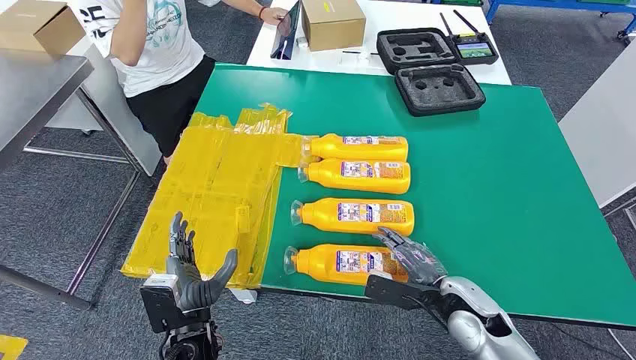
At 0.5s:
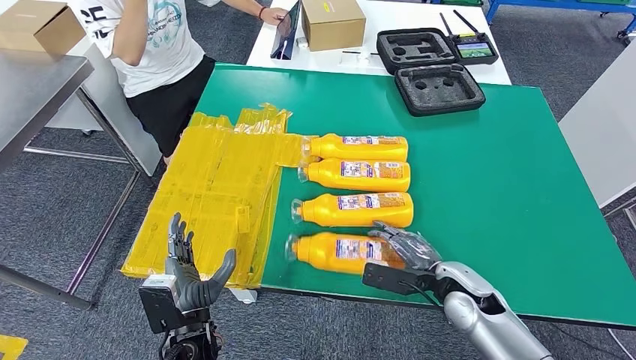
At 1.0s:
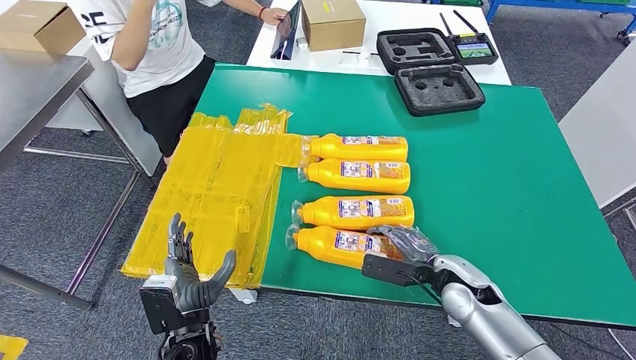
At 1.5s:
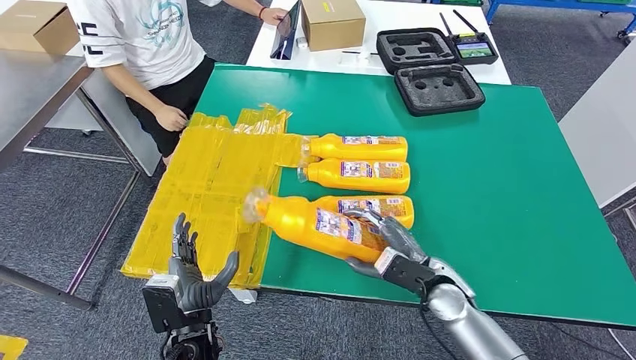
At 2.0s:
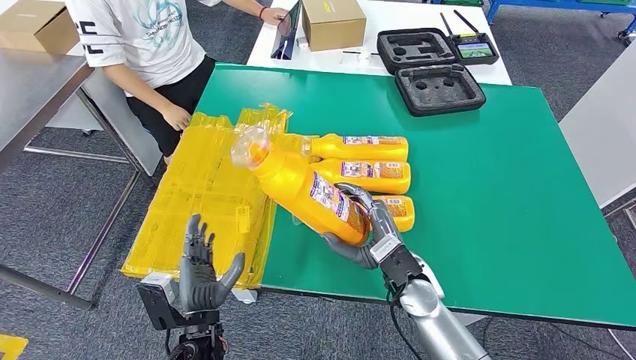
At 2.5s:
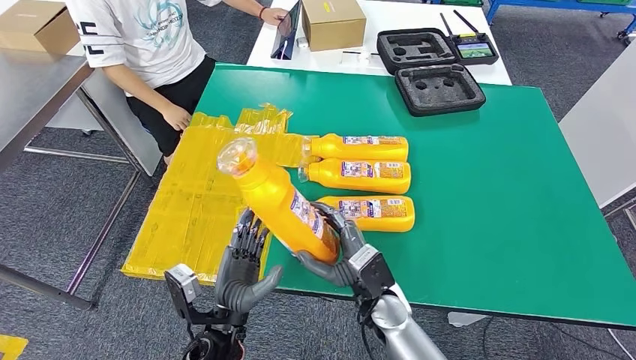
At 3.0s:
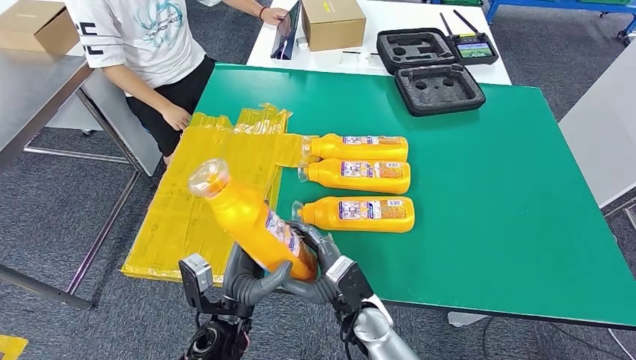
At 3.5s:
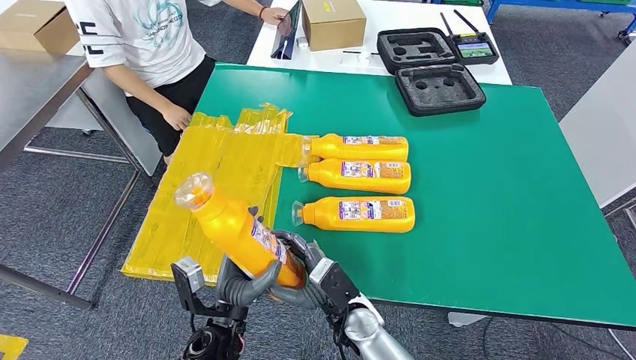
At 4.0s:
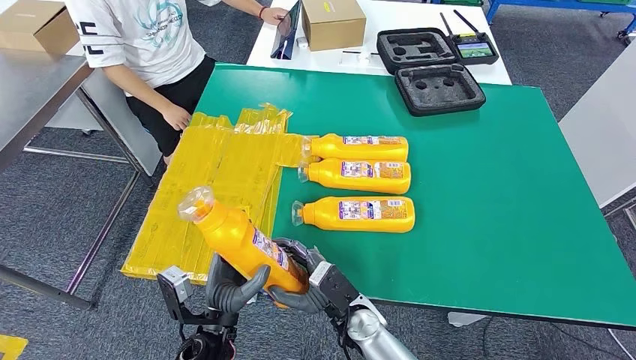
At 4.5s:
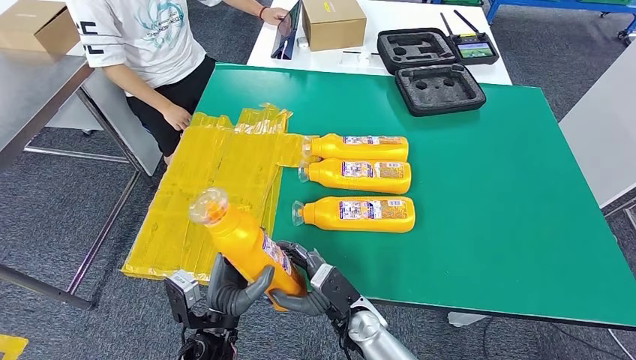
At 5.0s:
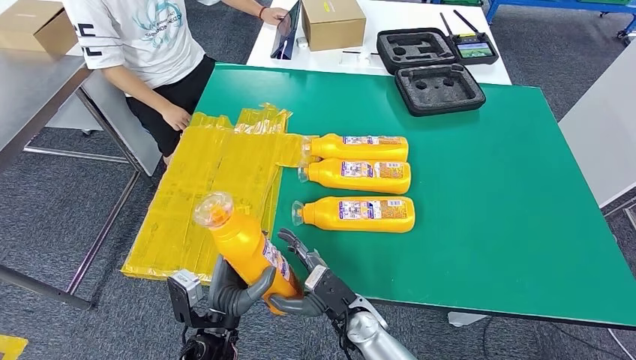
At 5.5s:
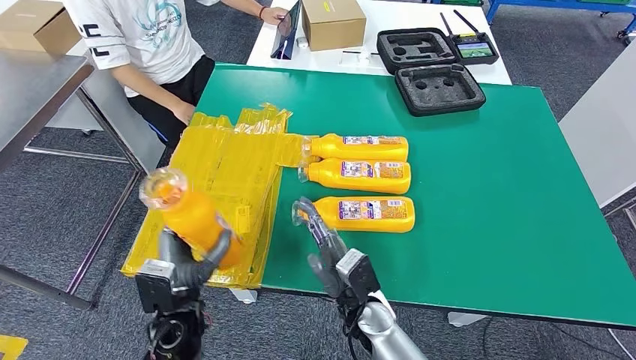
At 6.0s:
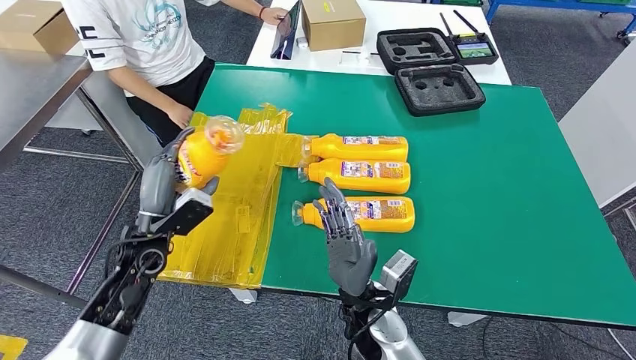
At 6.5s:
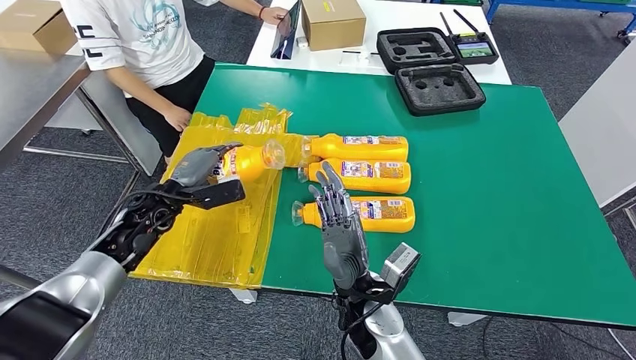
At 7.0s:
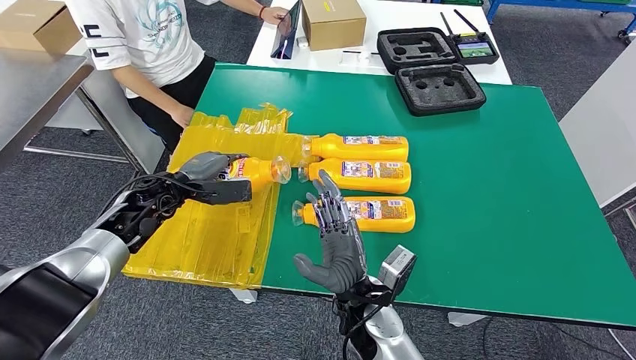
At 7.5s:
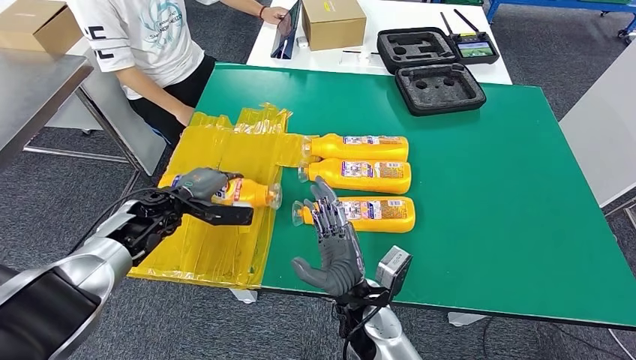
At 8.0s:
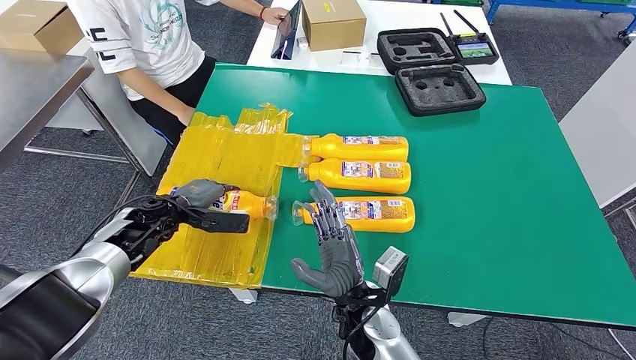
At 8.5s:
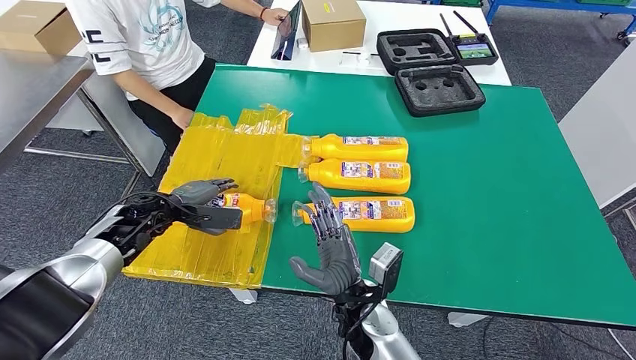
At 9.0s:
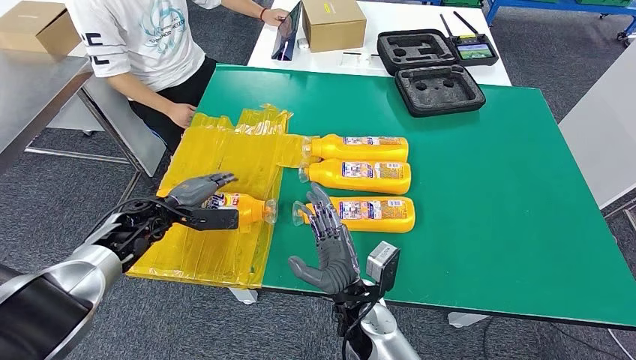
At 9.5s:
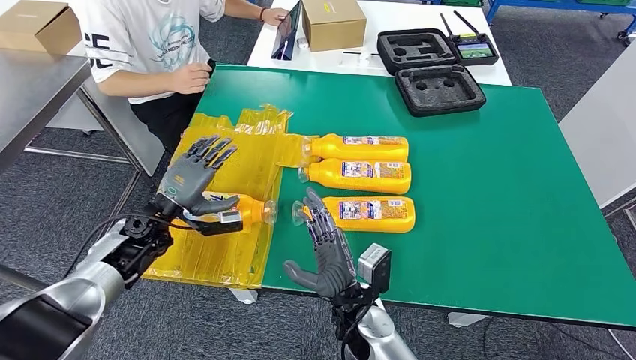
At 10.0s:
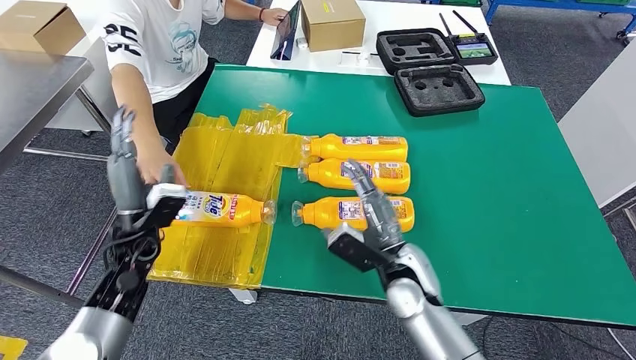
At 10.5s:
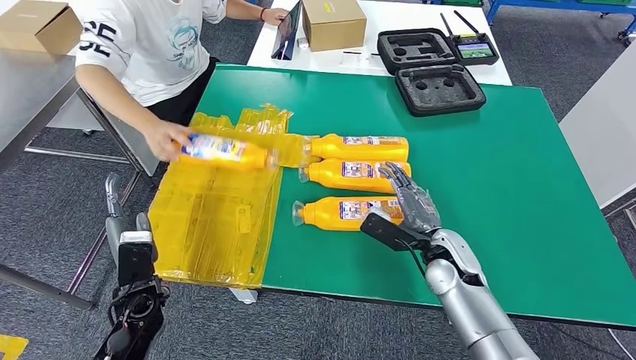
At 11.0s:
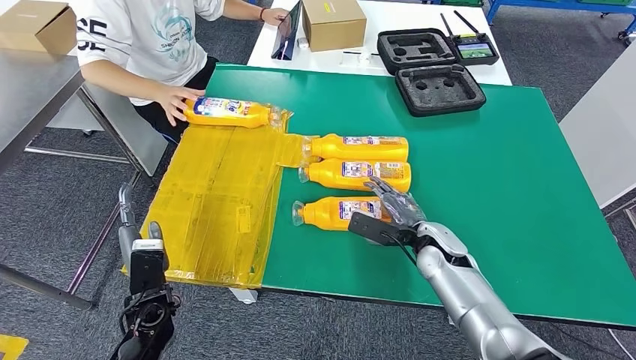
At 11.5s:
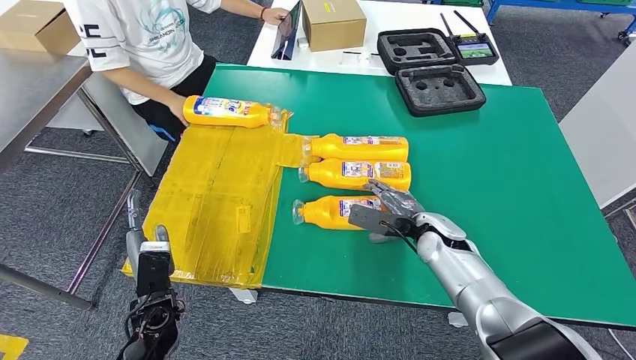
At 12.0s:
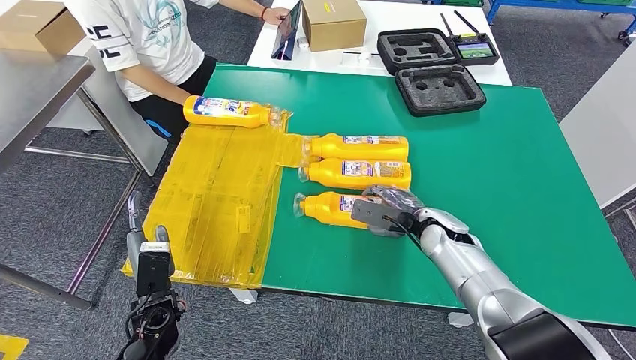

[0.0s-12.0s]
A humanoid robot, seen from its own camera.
Step, 0.0s to 3.5s: Take the fast-moving consumer goods bottle from the table.
Step, 4.0s to 8.0s: Flip the fast-moving consumer goods bottle to the front side.
2.0s to 4.0s: The right hand heads to the left and downward, covering approximately 10 cm.
4.0s to 6.0s: The right hand heads upward, covering roughly 5 cm; the left hand shifts some 20 cm forward, to the left and upward.
6.0s to 8.0s: The left hand goes some 10 cm forward.

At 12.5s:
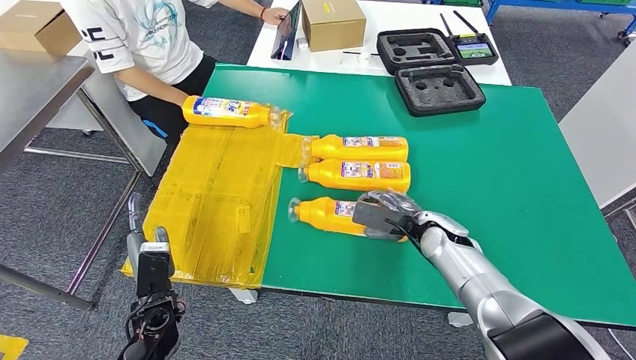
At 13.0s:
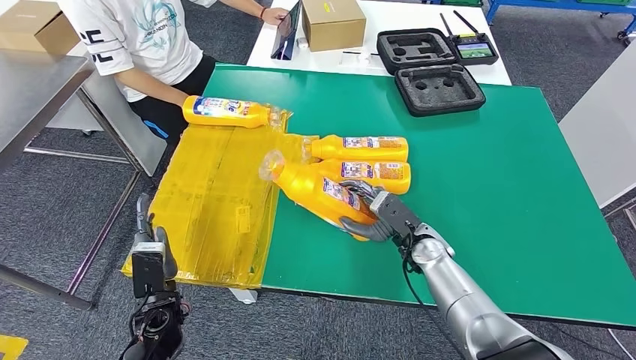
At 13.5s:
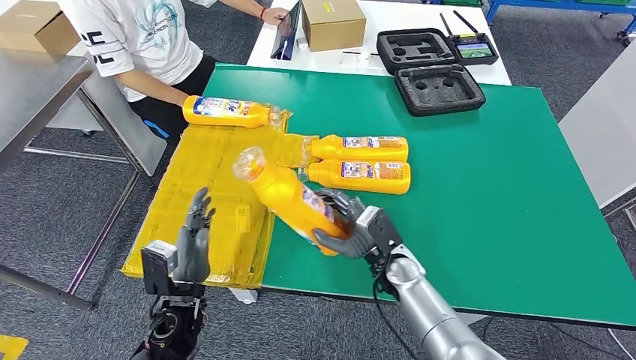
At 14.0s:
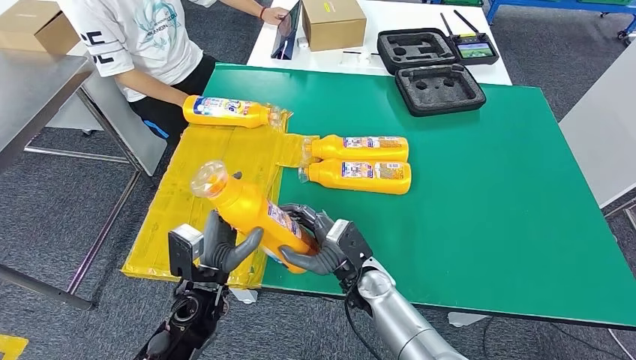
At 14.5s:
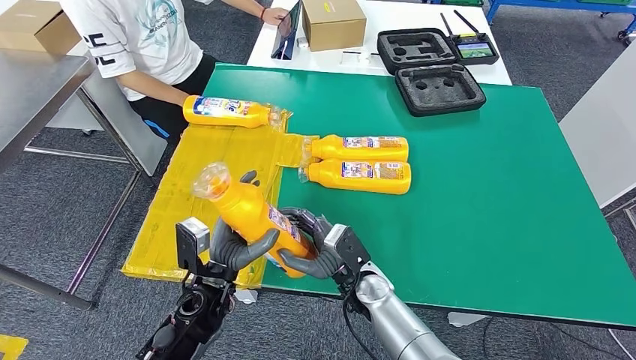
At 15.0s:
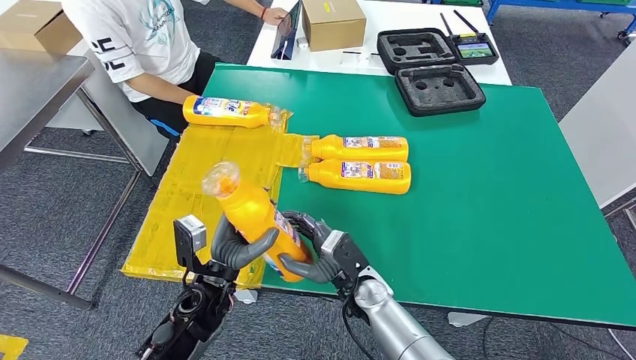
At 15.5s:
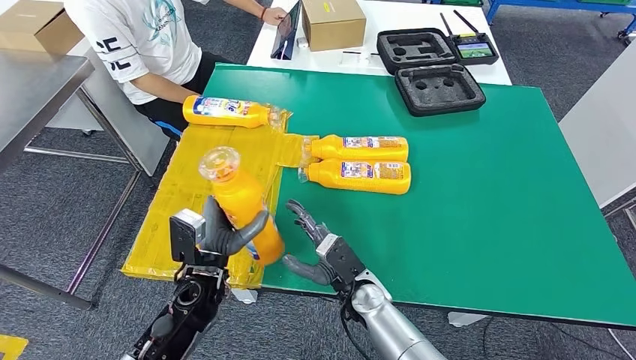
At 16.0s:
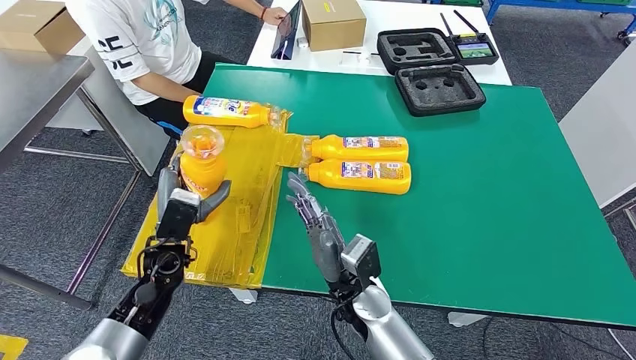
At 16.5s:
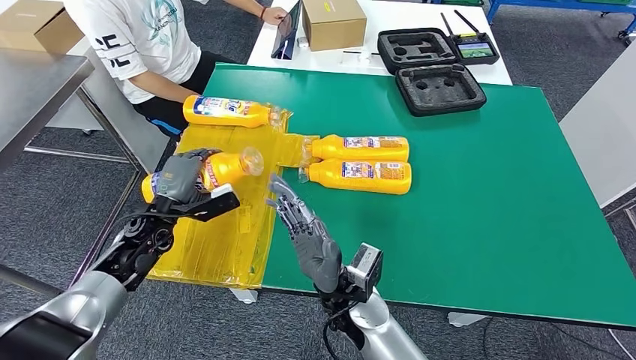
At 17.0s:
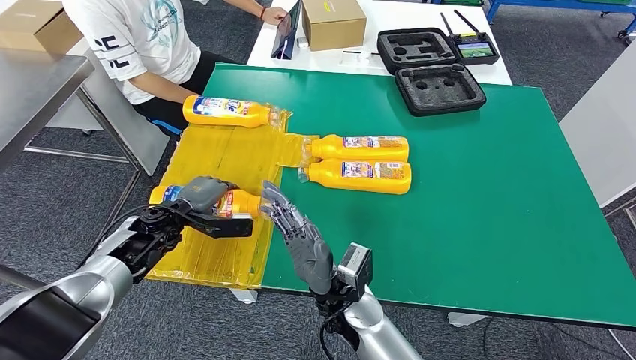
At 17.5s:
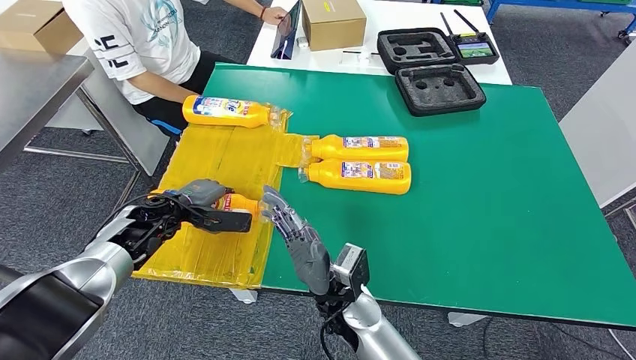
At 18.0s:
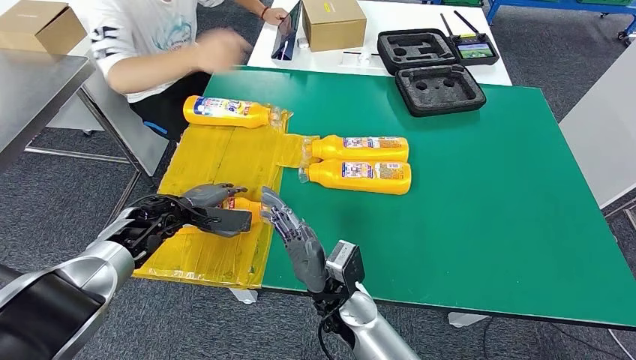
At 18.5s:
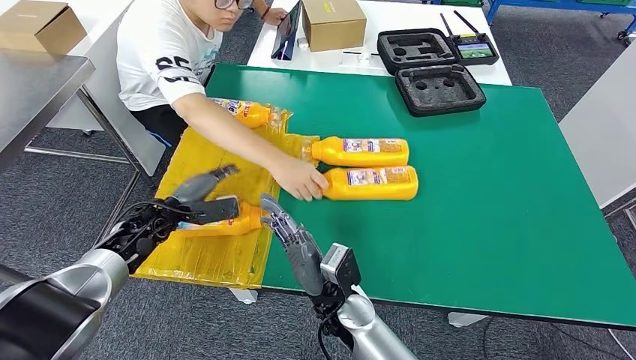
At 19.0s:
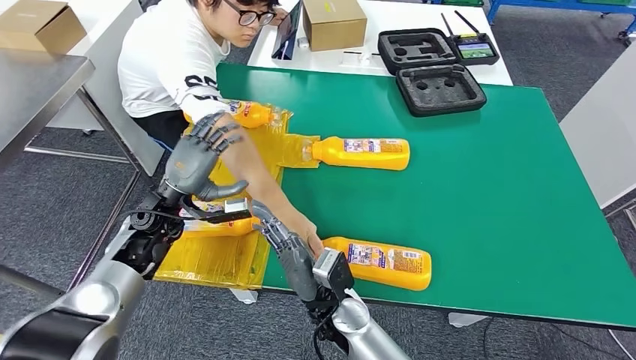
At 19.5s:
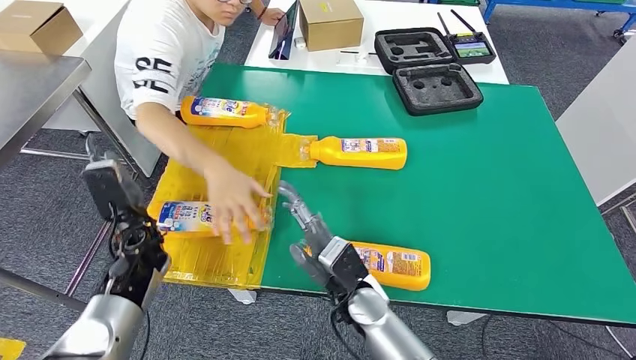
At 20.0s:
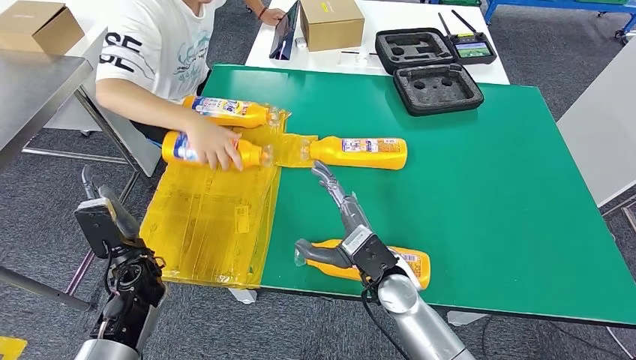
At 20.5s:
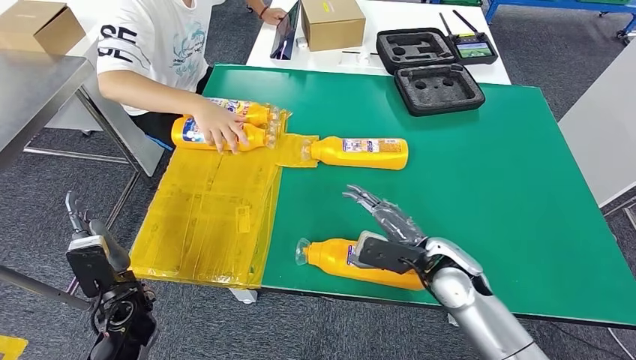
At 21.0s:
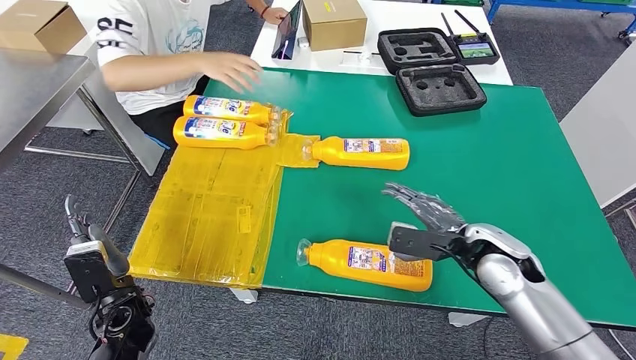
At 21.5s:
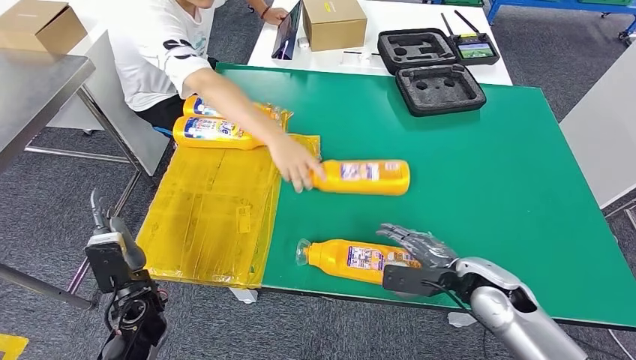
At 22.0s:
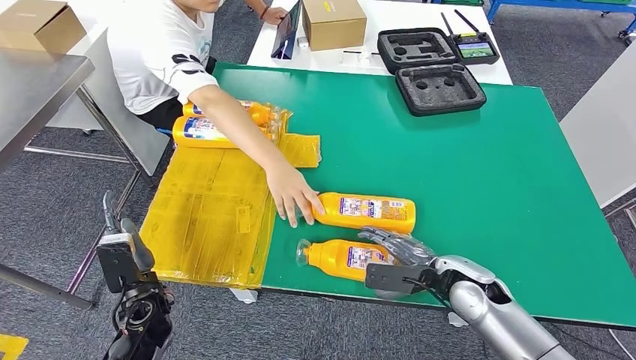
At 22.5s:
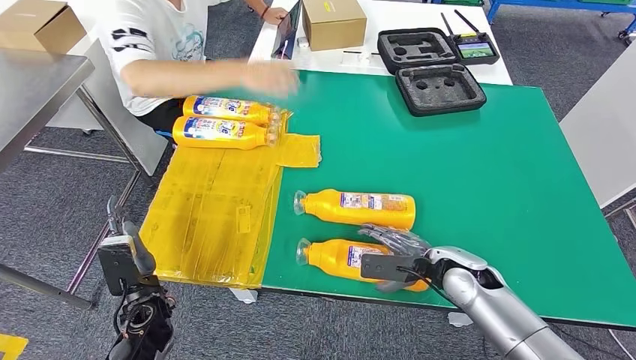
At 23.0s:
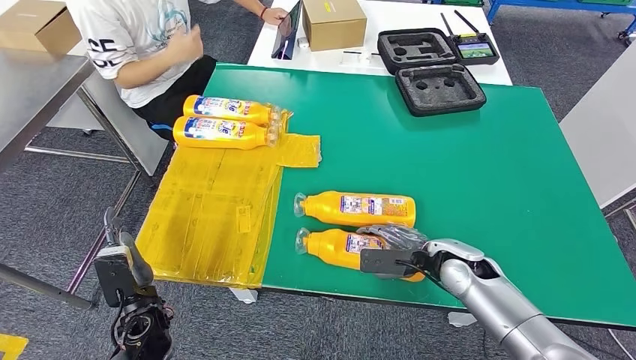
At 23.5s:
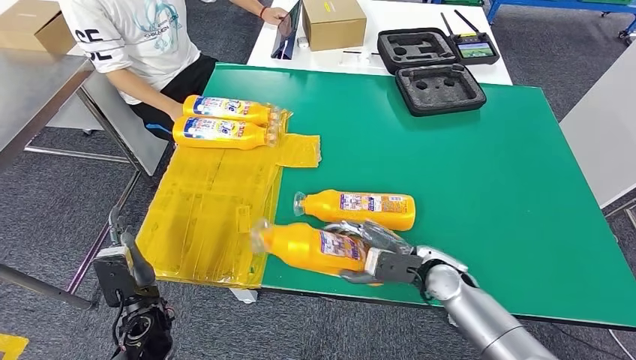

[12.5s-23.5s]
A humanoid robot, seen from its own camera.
Step, 14.0s to 17.5s: Flip the fast-moving consumer goods bottle to the front side.
12.5s to 14.5s: The right hand goes some 20 cm to the left and backward. The left hand shifts about 10 cm to the right and upward.
14.5s to 16.0s: The left hand moves to the left and forward, approximately 10 cm; the right hand ends up approximately 5 cm from where it was.
16.0s to 18.0s: The left hand heads forward, covering roughly 10 cm.
21.5s to 23.5s: The right hand is displaced to the left by approximately 5 cm.
